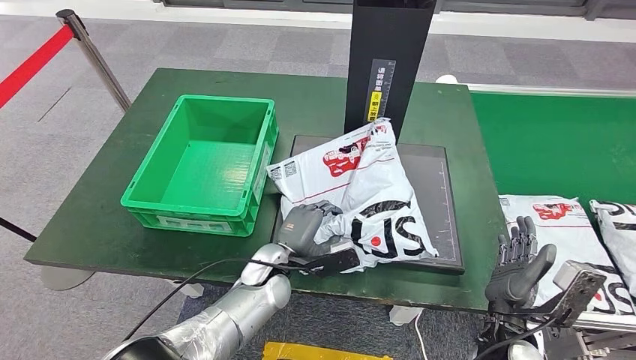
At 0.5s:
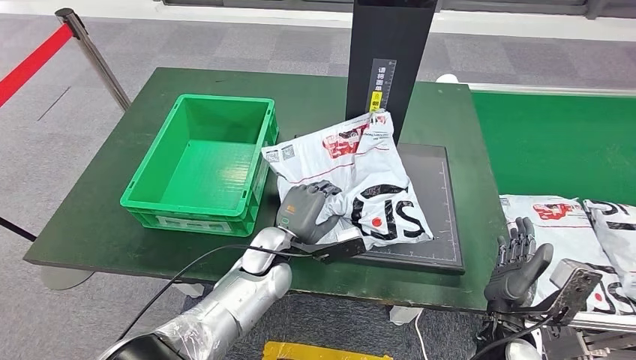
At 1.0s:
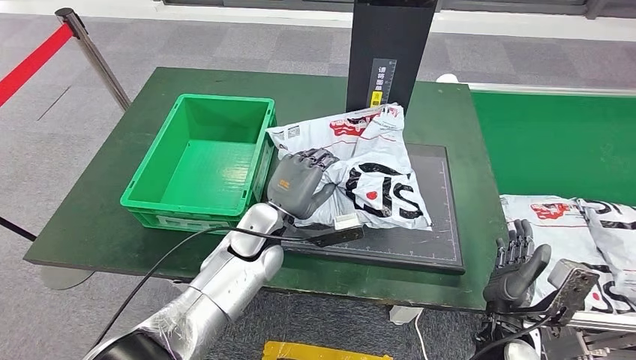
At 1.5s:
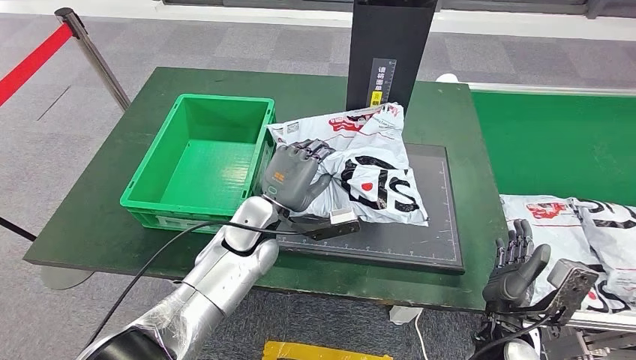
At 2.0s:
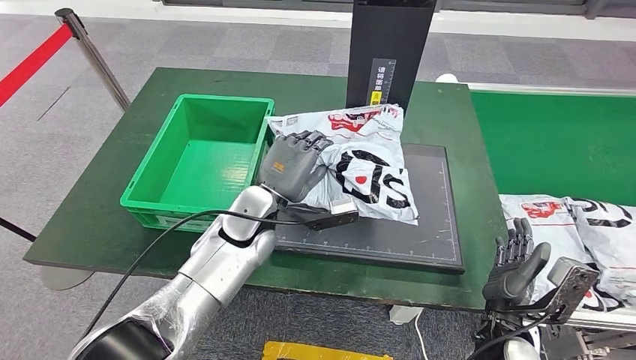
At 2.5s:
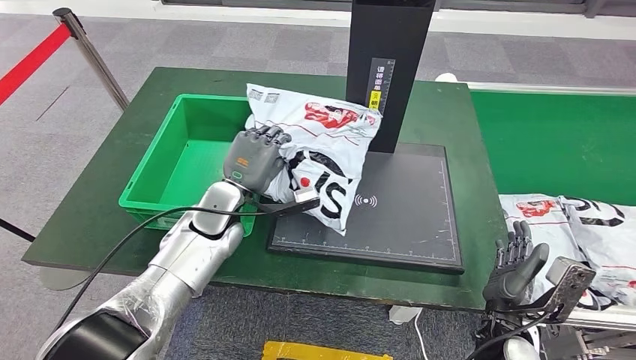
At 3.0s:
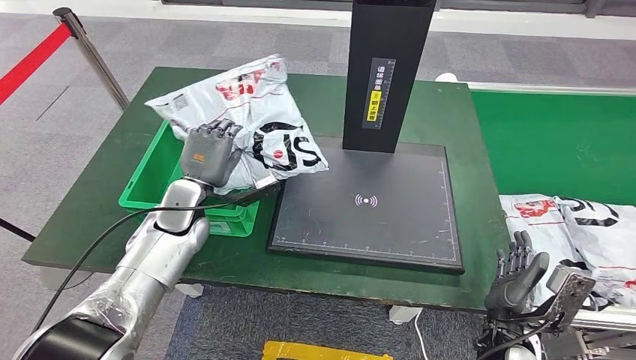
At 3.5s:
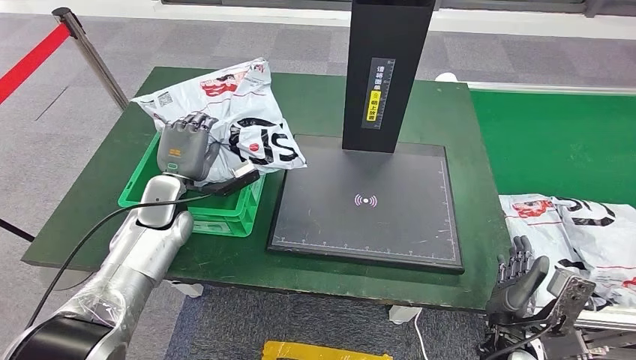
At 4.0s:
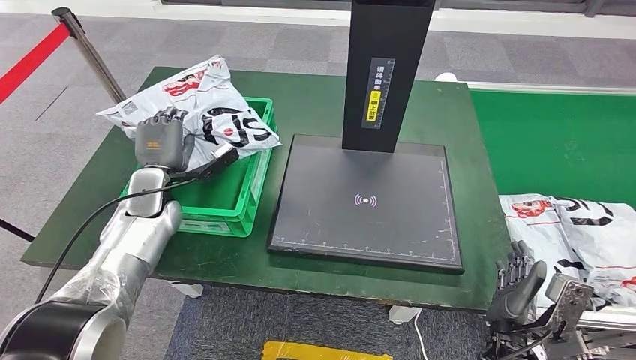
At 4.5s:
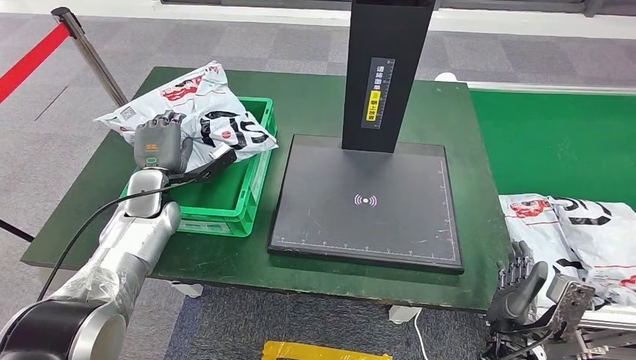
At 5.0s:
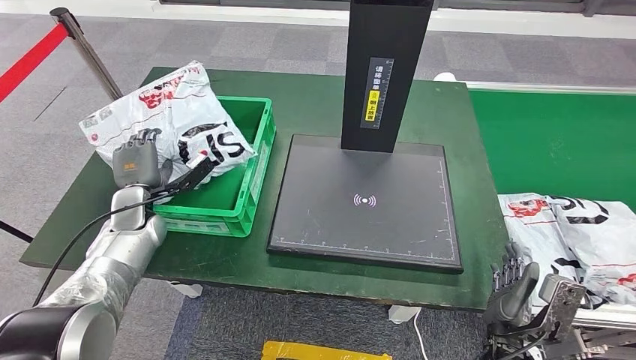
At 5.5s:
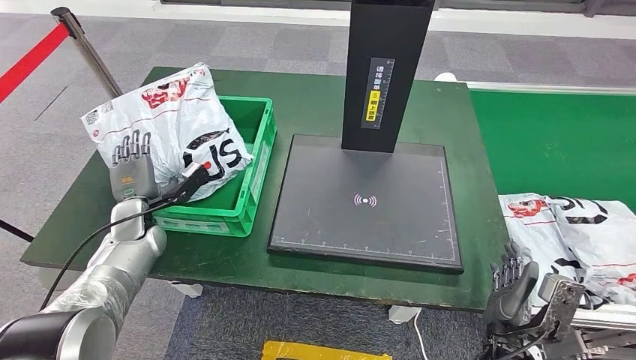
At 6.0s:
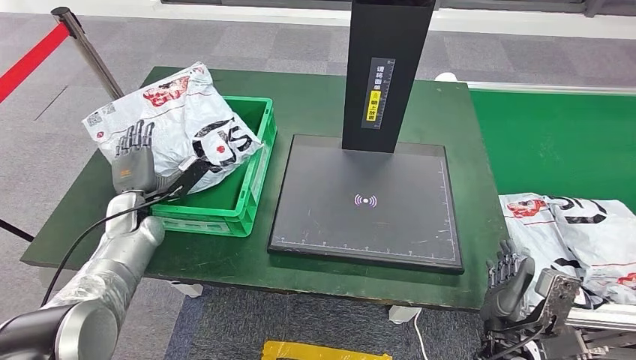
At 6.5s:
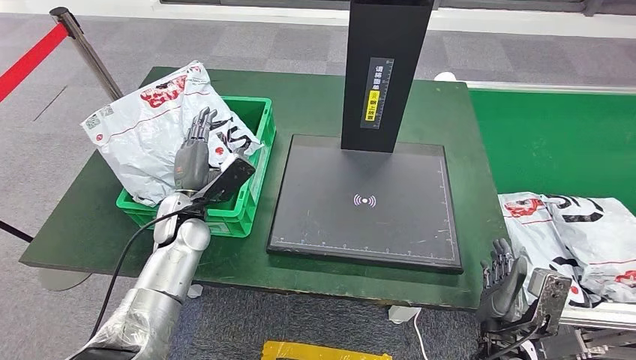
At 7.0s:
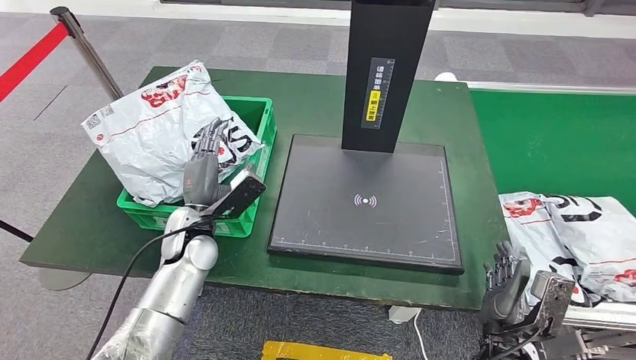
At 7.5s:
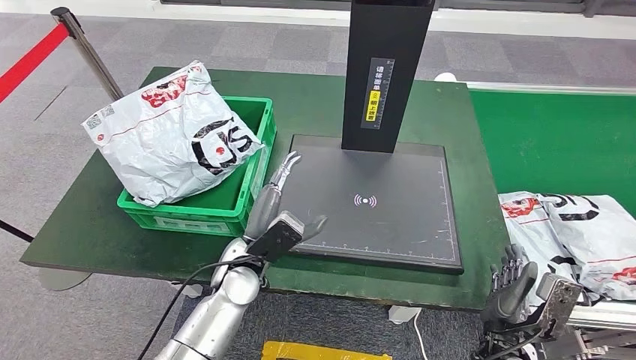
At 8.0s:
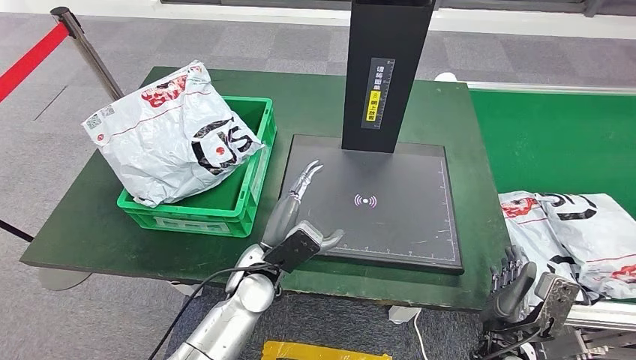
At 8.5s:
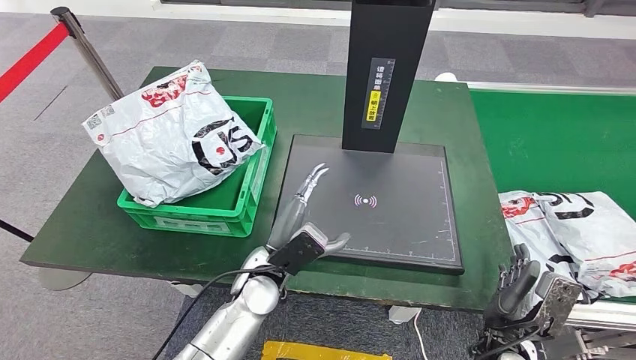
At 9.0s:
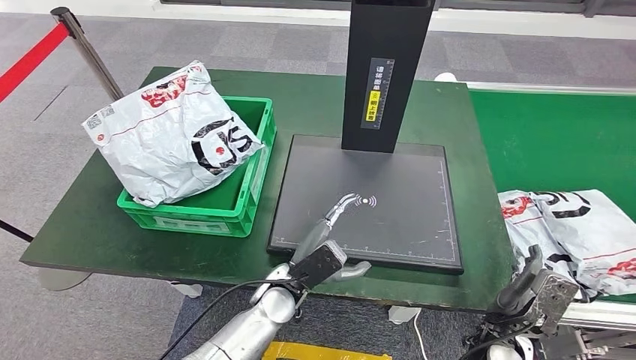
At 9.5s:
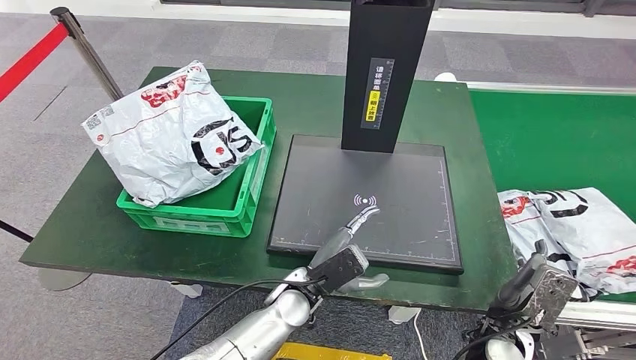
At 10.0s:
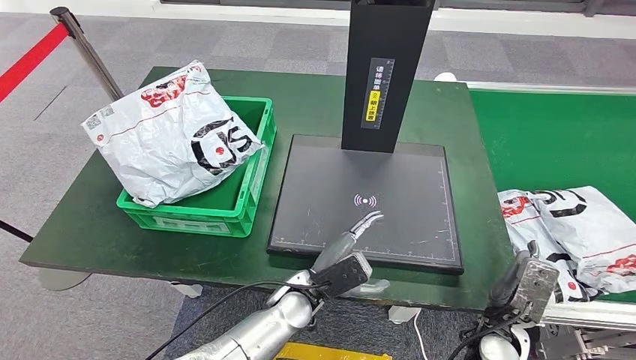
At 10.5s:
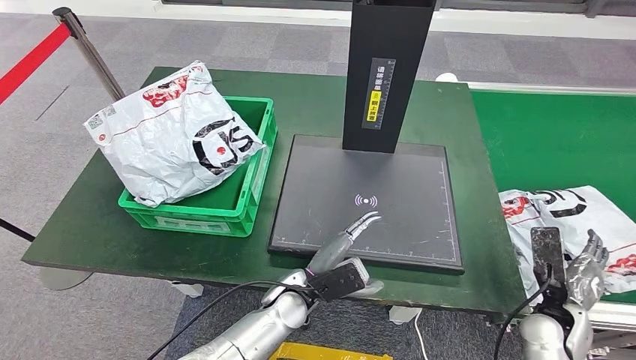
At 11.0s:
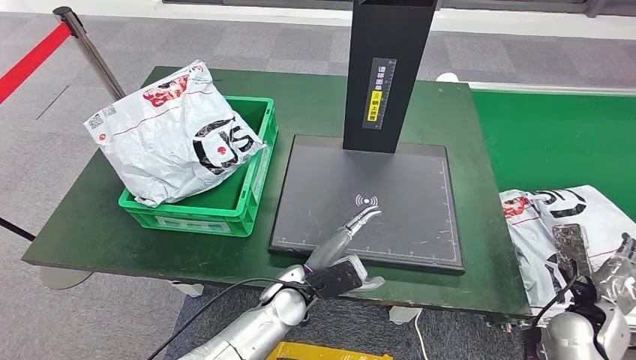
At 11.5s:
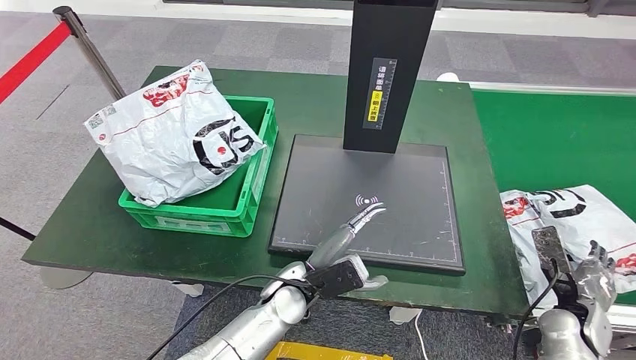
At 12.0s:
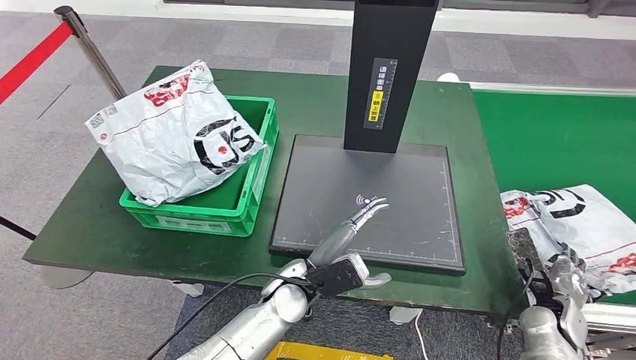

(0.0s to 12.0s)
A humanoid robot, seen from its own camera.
Step, 0.0s - 3.0s: Pick up the parcel from the inbound machine.
Step, 3.5s - 6.5s: Put the parcel inside the courier box.
4.0s - 6.0s: The left hand is displaced to the left and downward by approximately 5 cm.
6.0s - 8.0s: The left hand goes roughly 25 cm to the right.
8.0s - 10.0s: The left hand travels to the right by approximately 5 cm.
10.0s - 12.0s: The right hand travels to the right by some 15 cm.

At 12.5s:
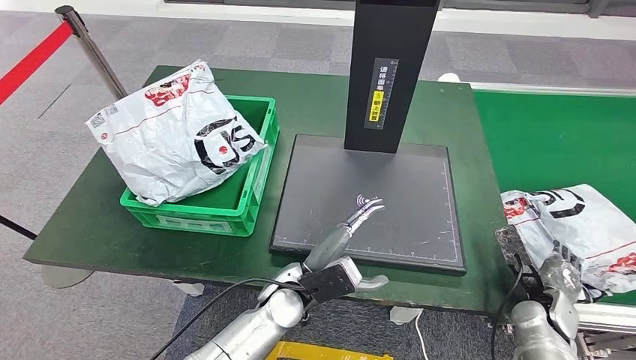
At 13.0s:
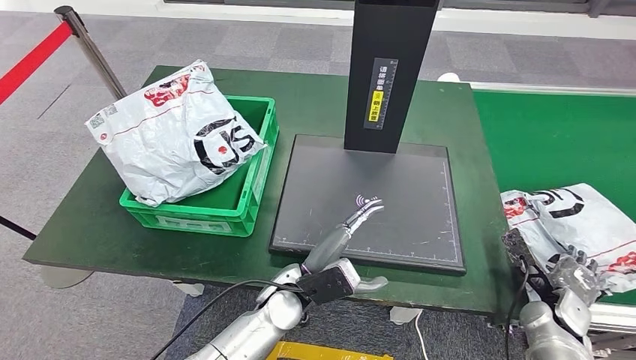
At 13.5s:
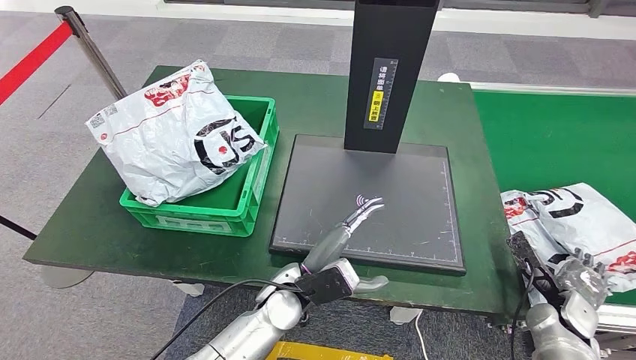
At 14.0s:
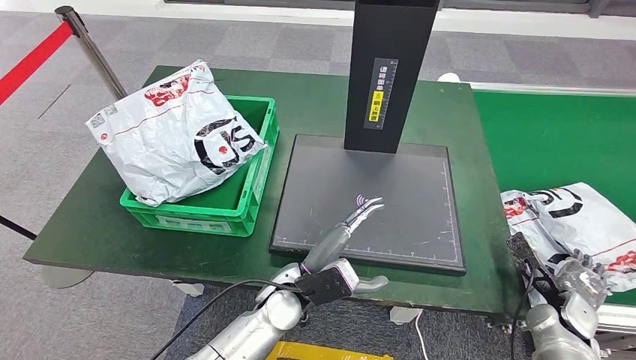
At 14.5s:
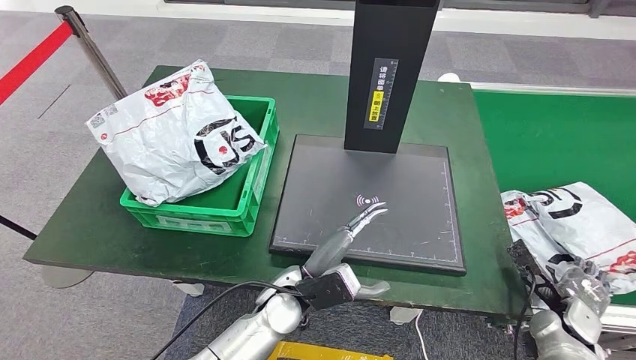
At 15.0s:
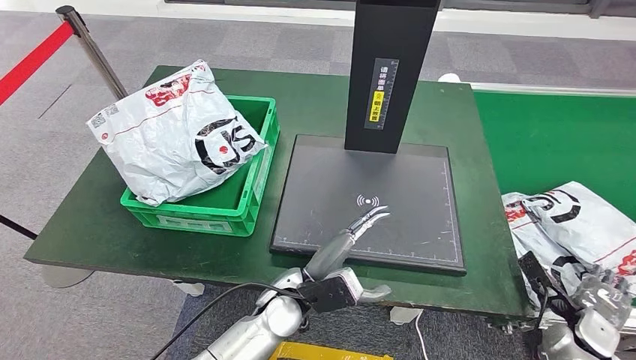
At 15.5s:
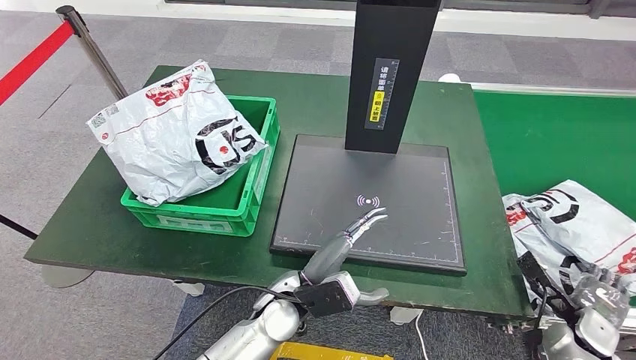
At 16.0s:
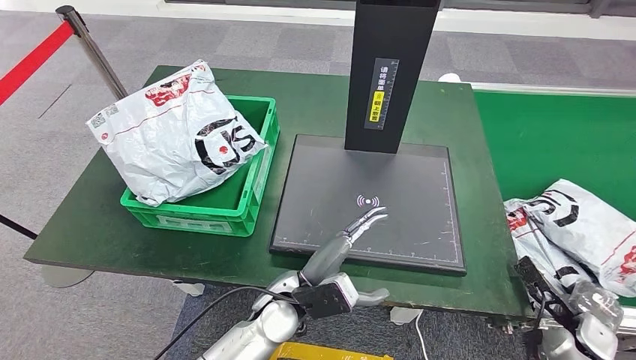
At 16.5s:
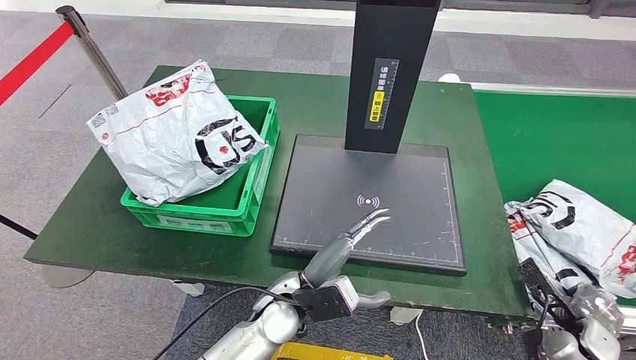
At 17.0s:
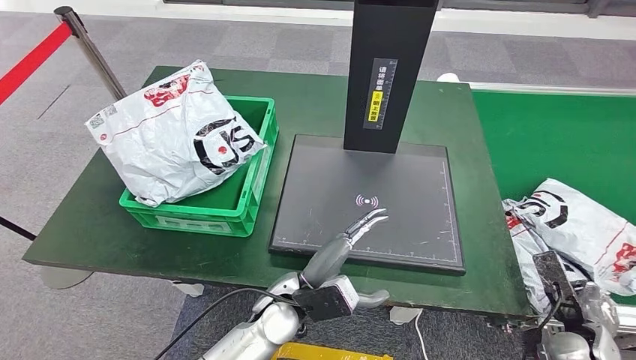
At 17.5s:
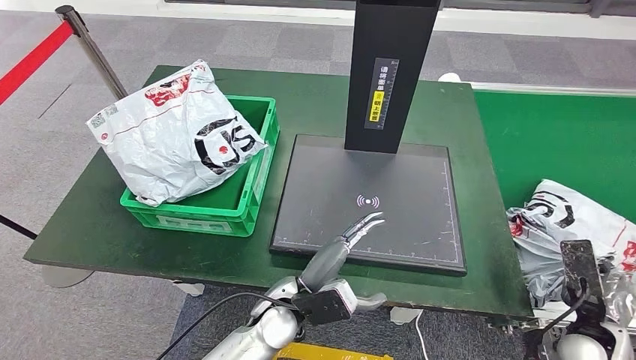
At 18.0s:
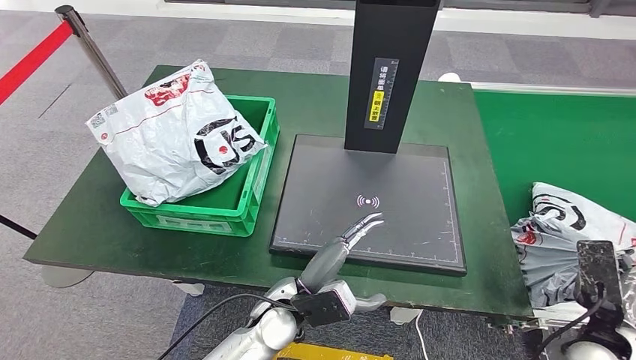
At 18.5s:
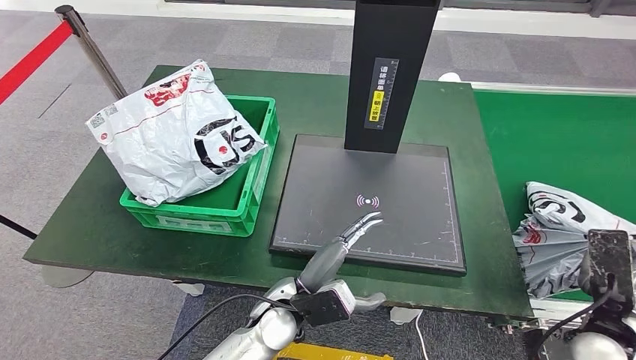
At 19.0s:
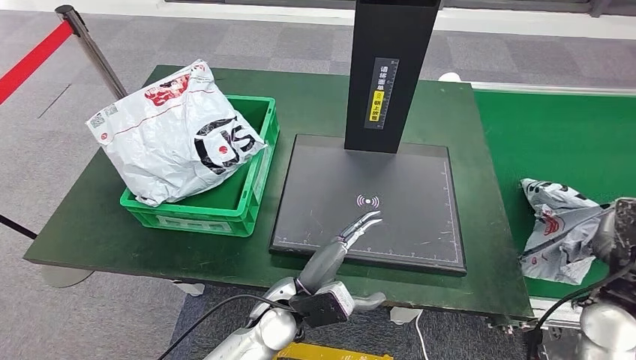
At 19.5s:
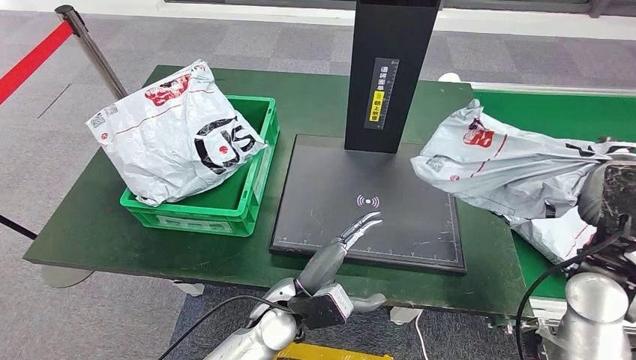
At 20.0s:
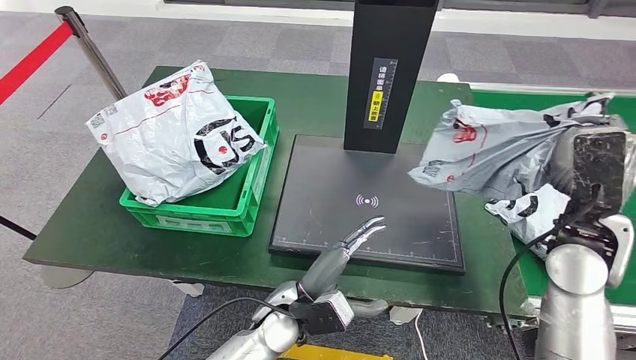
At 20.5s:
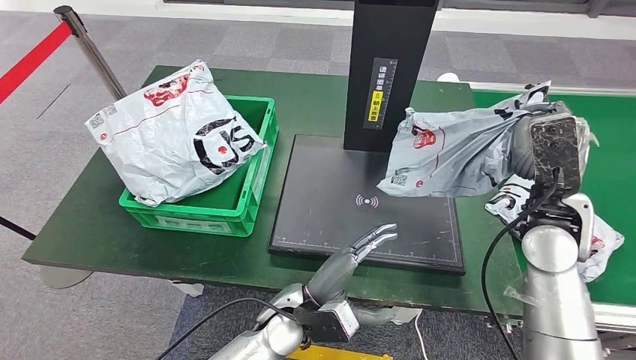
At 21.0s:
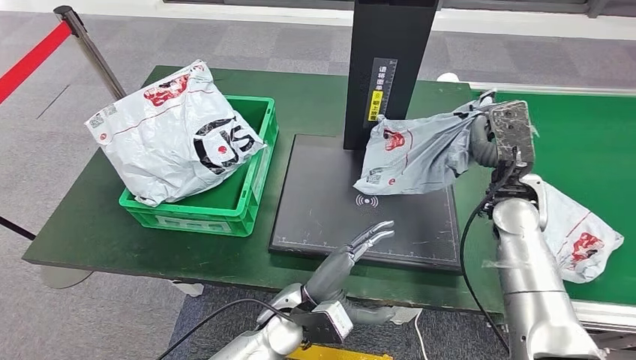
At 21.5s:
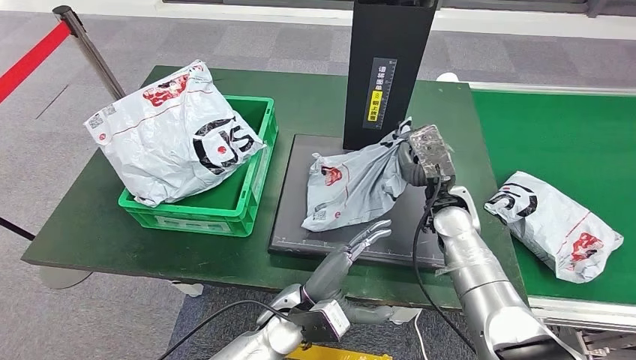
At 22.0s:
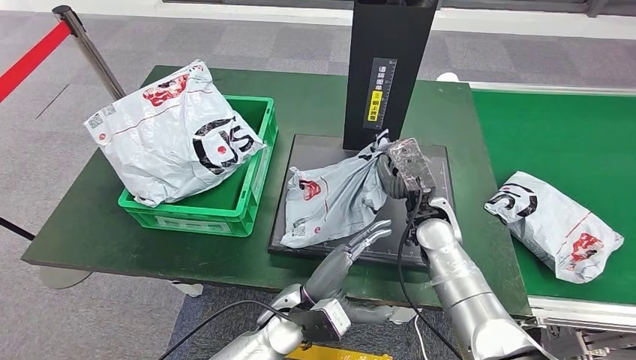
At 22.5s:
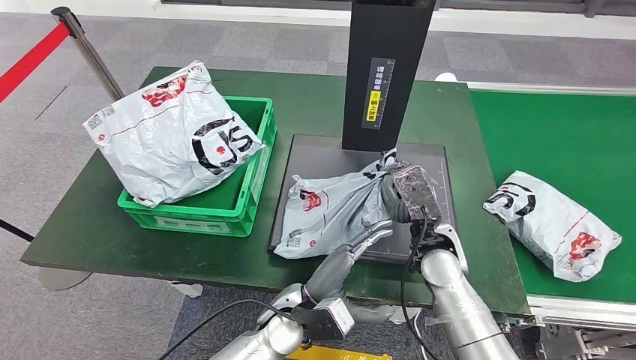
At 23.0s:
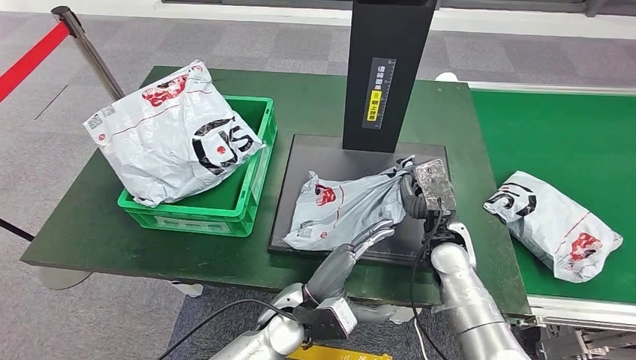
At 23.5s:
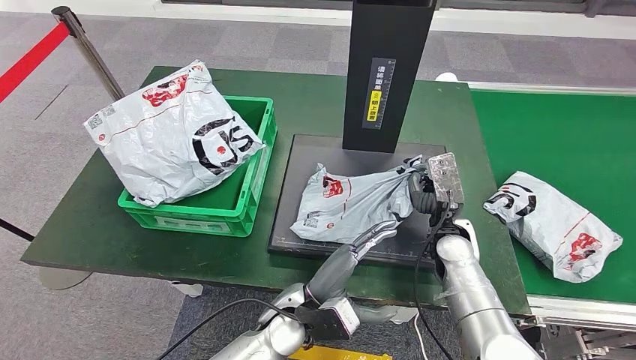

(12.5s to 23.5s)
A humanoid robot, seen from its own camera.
Step, 12.5s - 19.5s: Pick up the parcel from the conveyor belt.
12.5s - 14.5s: There are only small adjustments of the hands.
14.5s - 16.0s: The hands make only small movements.
16.0s - 18.0s: The right hand moves upward, approximately 10 cm.
21.5s - 23.5s: The right hand changes place by about 5 cm.
